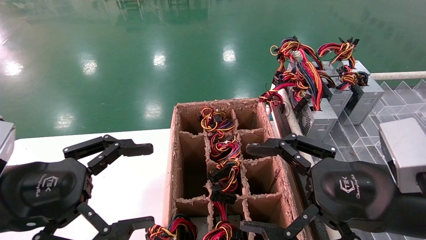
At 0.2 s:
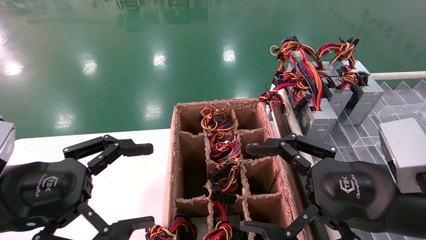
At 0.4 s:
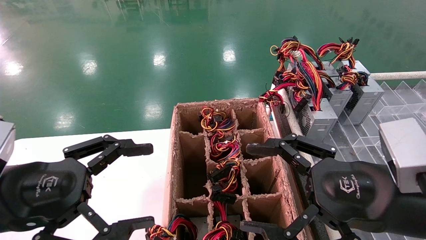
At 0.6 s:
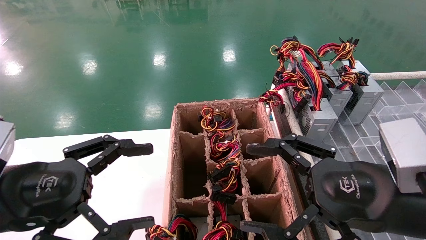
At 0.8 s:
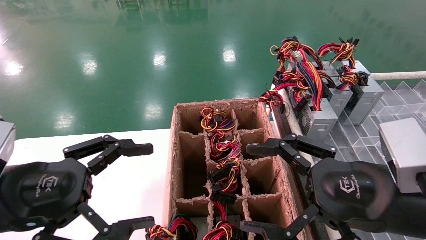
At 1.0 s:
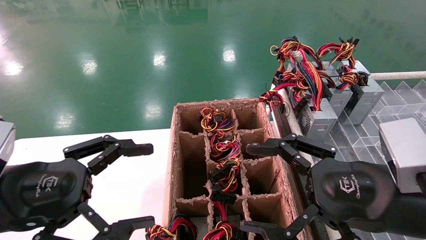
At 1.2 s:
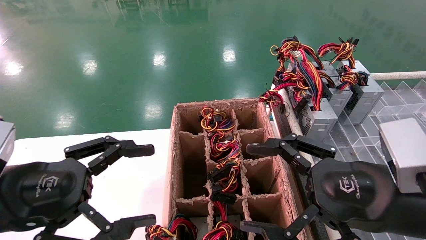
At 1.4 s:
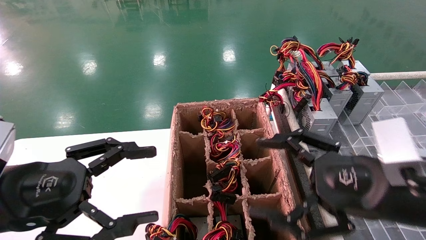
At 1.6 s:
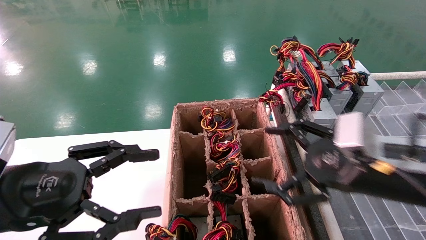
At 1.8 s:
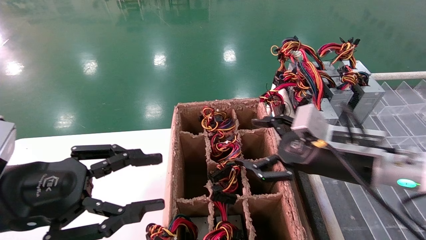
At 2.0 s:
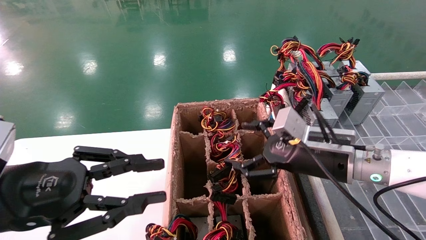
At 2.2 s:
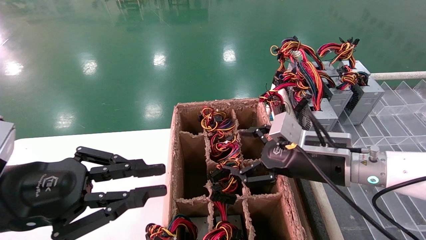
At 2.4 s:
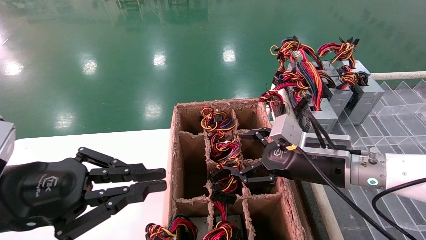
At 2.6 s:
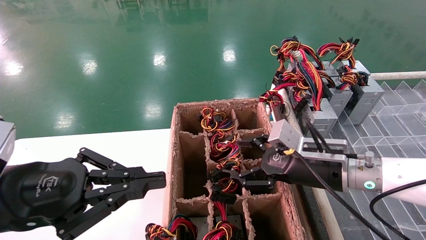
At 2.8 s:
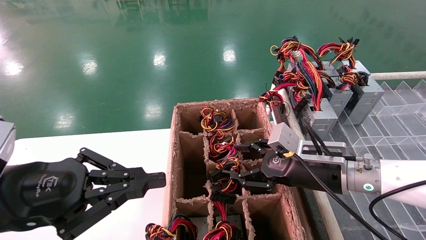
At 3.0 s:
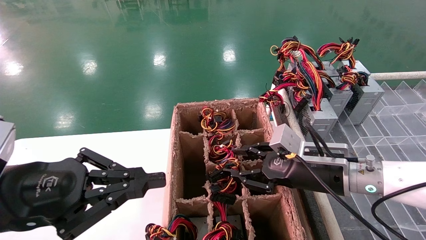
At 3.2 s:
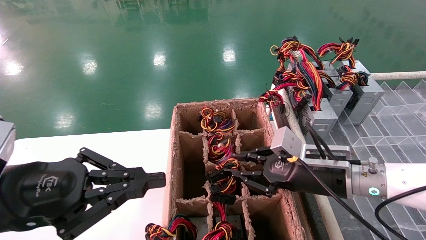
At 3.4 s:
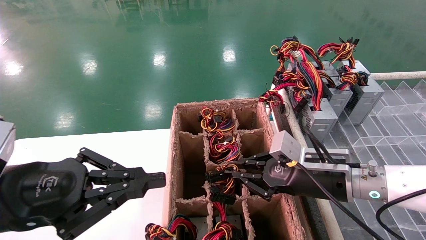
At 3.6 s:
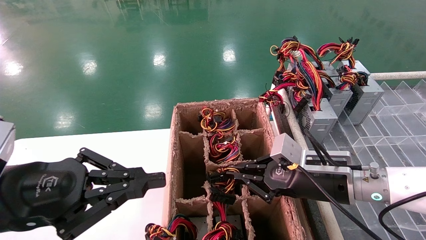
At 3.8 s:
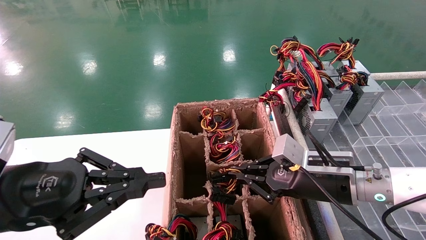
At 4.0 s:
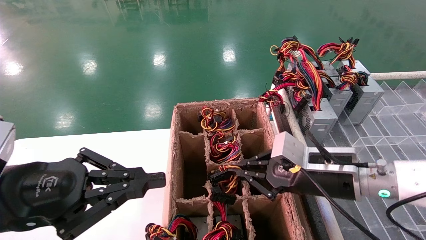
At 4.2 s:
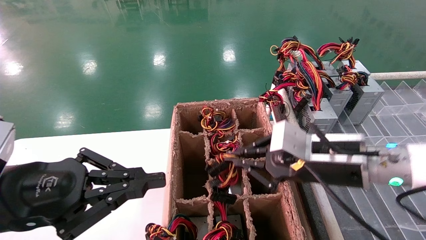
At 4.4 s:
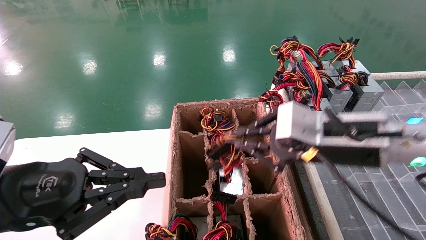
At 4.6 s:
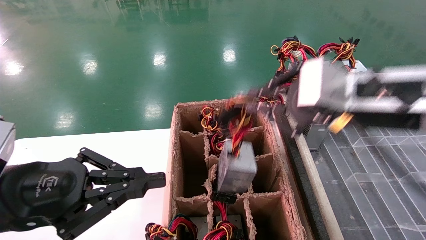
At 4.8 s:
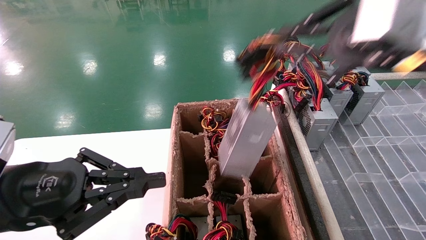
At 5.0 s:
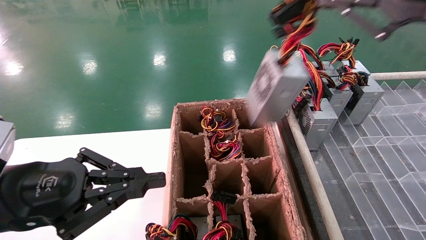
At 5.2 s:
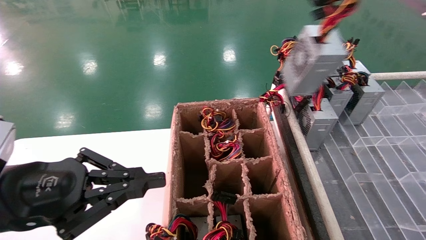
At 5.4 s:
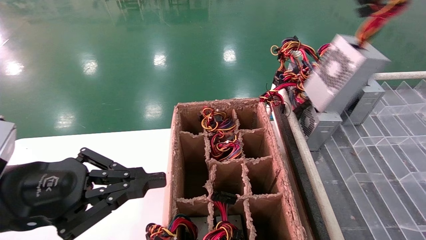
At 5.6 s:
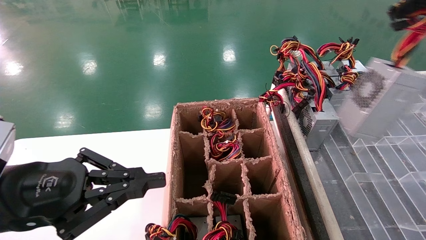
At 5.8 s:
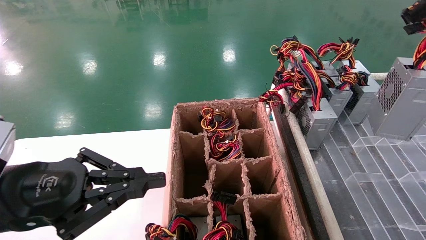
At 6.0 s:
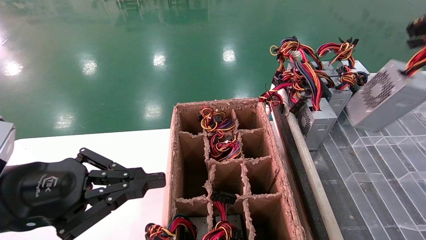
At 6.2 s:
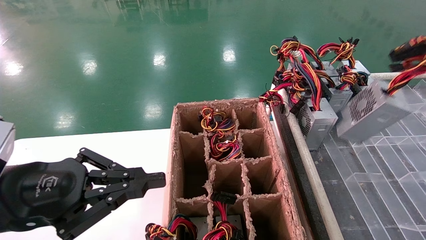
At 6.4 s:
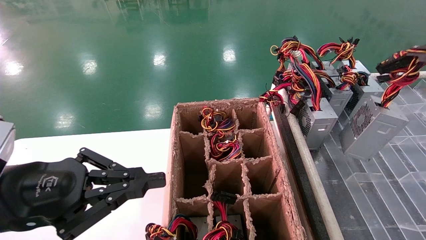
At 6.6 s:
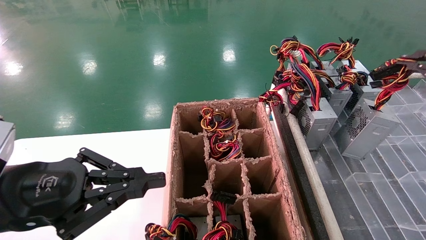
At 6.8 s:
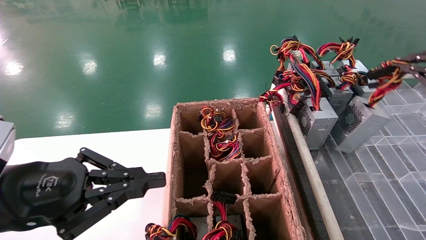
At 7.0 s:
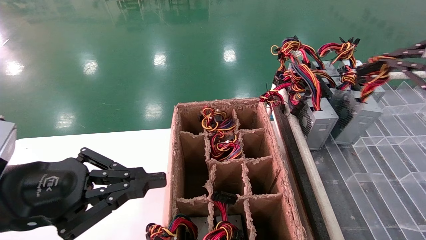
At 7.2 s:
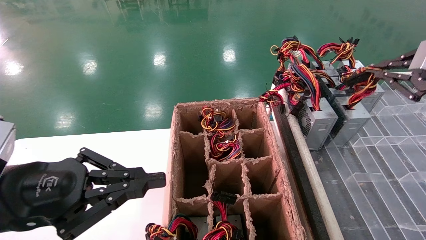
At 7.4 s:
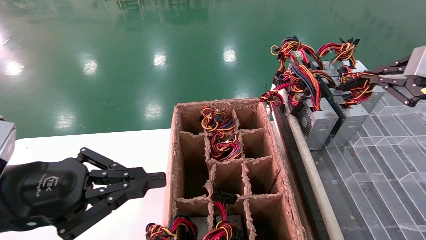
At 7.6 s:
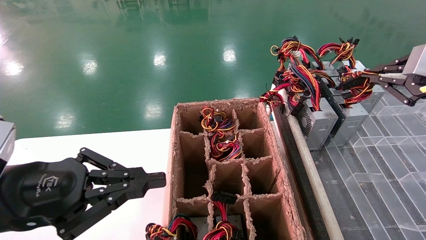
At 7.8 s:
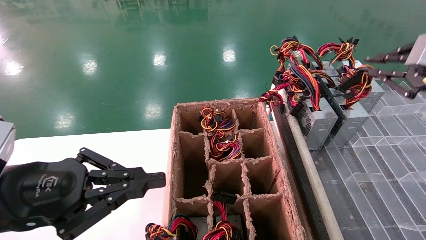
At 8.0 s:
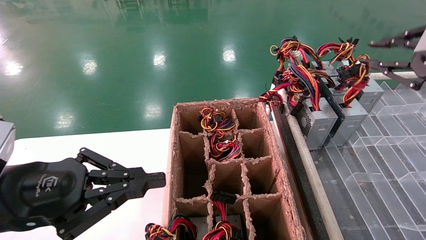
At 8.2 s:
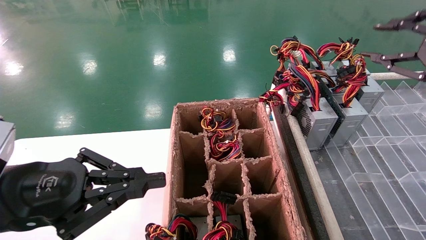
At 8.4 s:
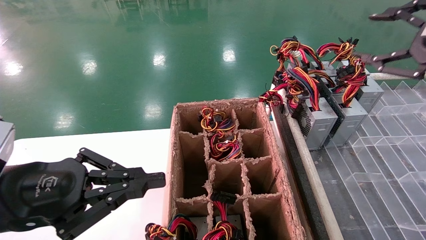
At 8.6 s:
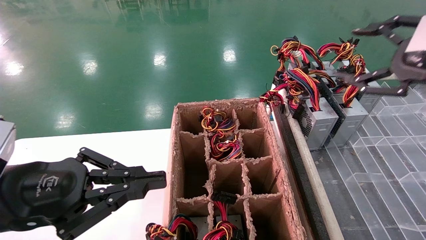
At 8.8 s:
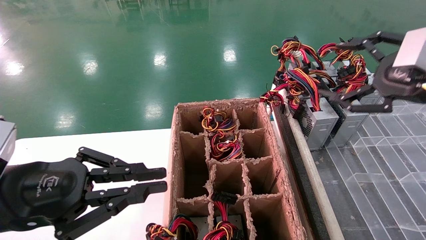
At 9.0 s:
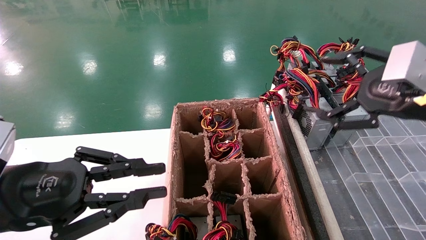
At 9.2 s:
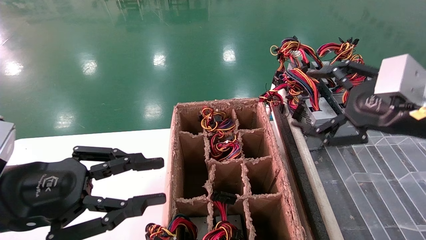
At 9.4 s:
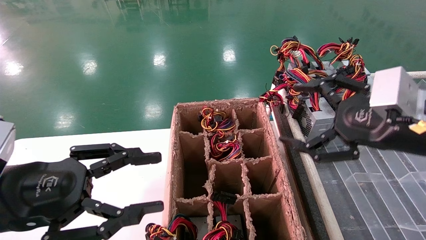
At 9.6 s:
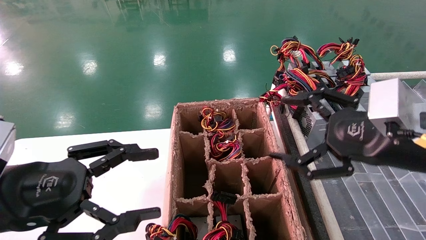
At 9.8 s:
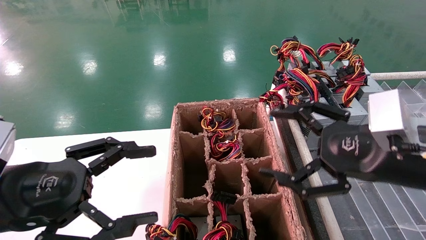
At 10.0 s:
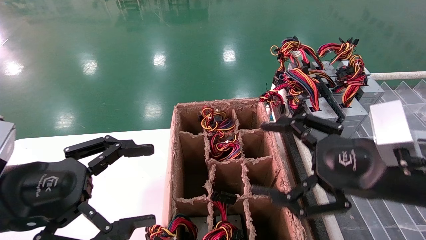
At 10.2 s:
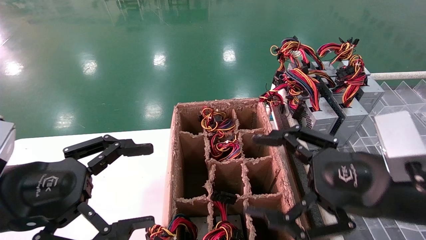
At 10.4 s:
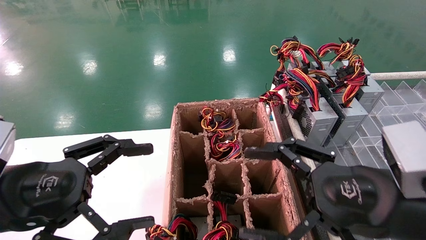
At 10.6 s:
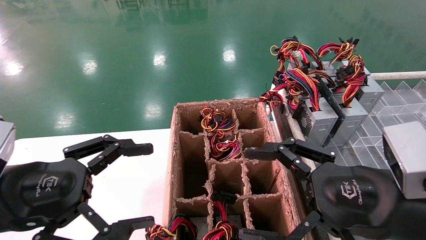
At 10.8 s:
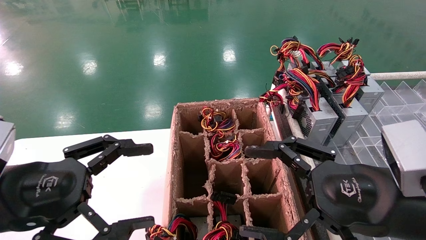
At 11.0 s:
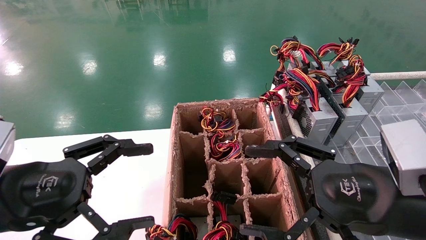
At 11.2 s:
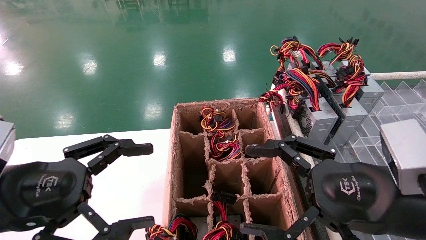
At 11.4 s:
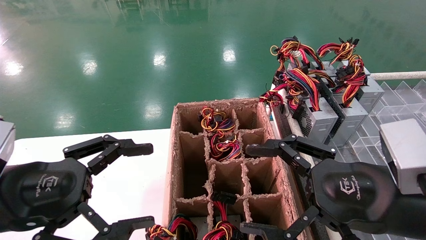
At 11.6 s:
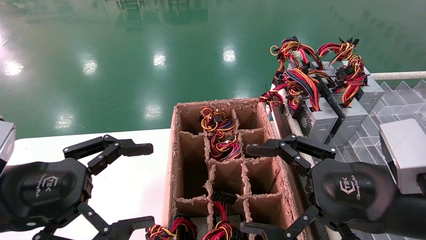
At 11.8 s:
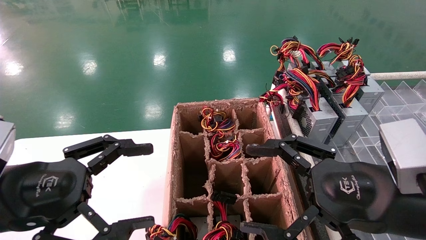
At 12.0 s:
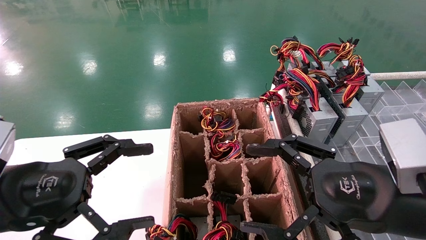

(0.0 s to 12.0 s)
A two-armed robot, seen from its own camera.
Step, 1.8 s - 3.6 s: Grab the main unit power supply from the containment box.
Step, 3.8 s - 8.0 s: Place the main unit power supply in the designated area.
0.0 s - 1.6 s: The right gripper moves forward, roughly 5 cm.
1.6 s - 3.0 s: The left gripper closes up, while the right gripper moves forward, about 5 cm, and closes.
3.0 s - 4.4 s: The right gripper is displaced upward and backward by about 15 cm, and closes its fingers.
4.4 s - 6.0 s: The right gripper travels to the right, upward and backward by about 25 cm.
6.0 s - 7.6 s: The right gripper goes approximately 15 cm forward and downward.
7.6 s - 9.0 s: The right gripper goes some 10 cm to the left, and opens.
9.0 s - 10.4 s: The right gripper heads downward and to the left, covering about 15 cm. Meanwhile the left gripper opens its fingers.
10.4 s - 12.0 s: The two grippers keep their place.

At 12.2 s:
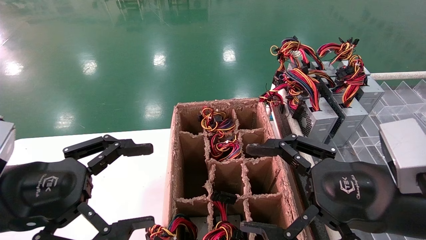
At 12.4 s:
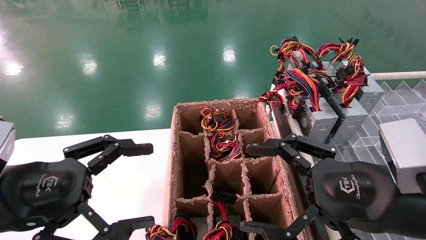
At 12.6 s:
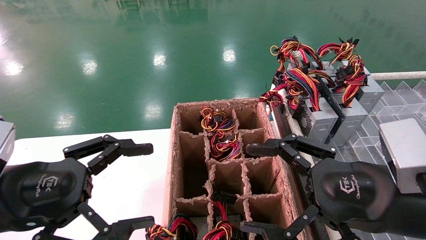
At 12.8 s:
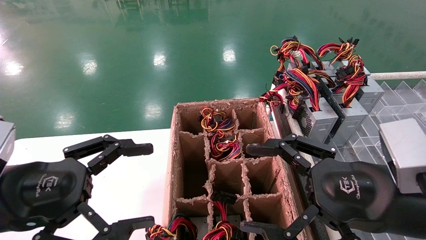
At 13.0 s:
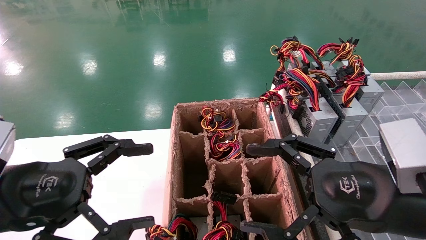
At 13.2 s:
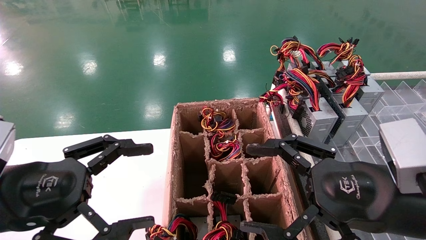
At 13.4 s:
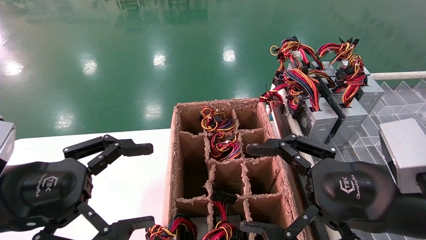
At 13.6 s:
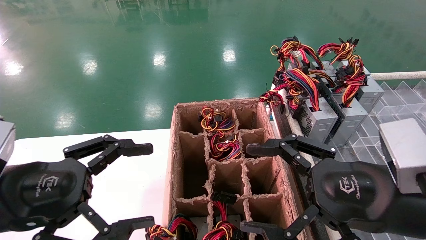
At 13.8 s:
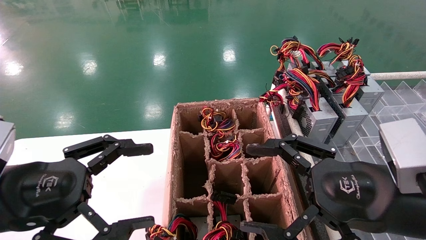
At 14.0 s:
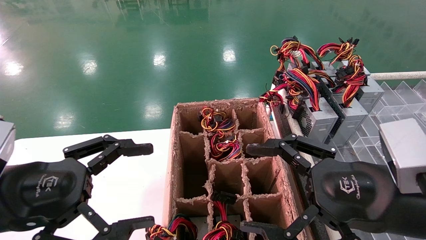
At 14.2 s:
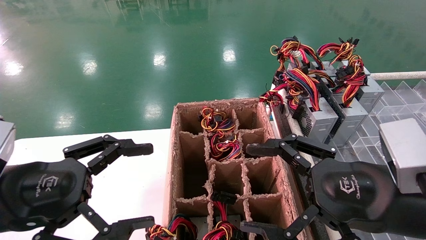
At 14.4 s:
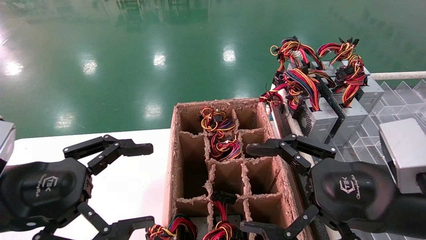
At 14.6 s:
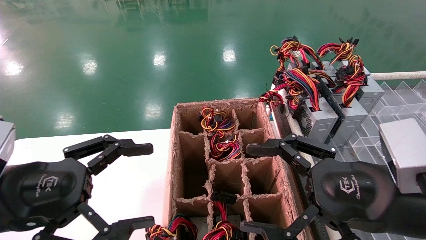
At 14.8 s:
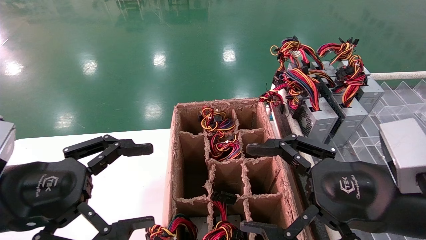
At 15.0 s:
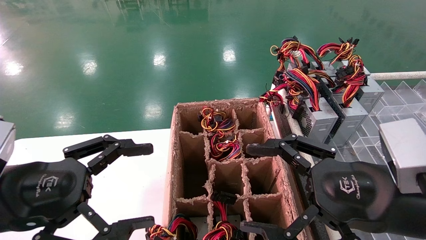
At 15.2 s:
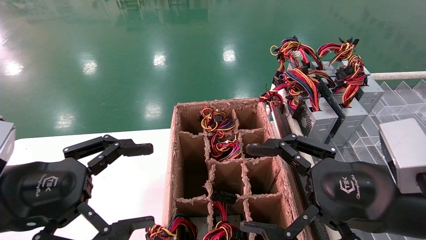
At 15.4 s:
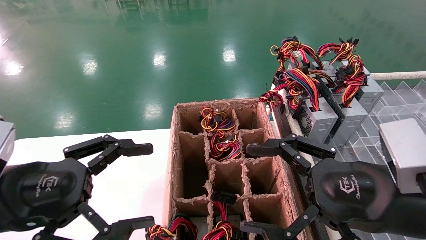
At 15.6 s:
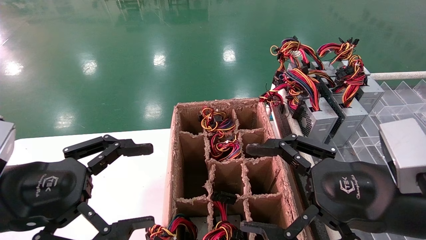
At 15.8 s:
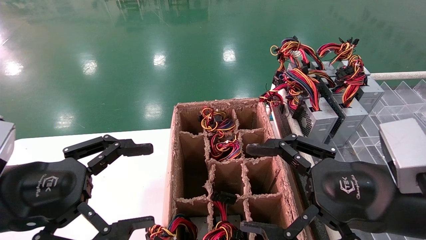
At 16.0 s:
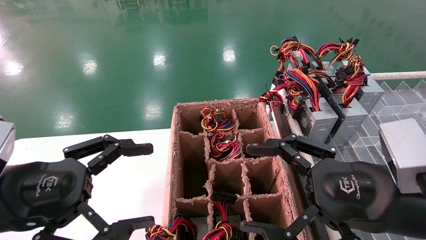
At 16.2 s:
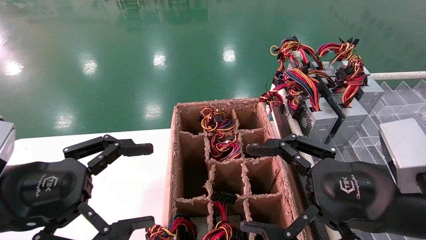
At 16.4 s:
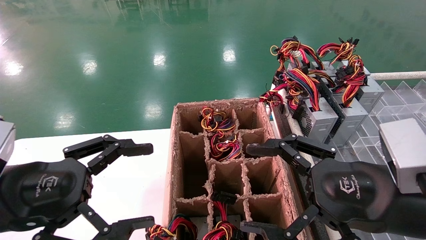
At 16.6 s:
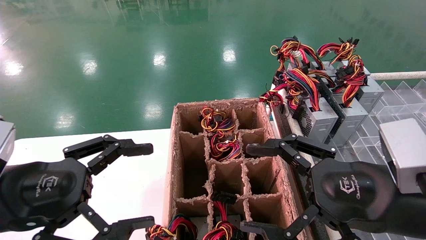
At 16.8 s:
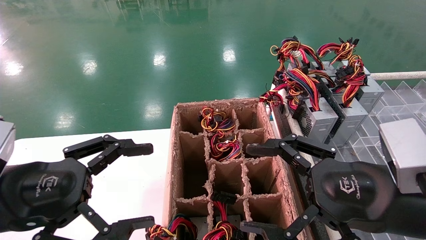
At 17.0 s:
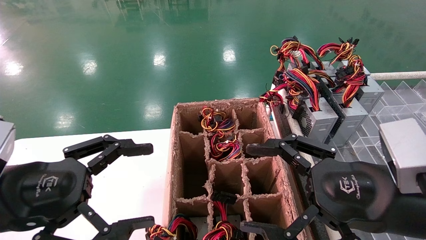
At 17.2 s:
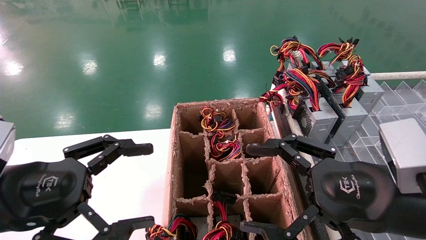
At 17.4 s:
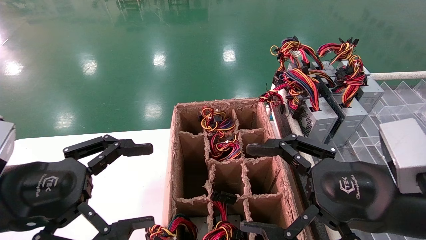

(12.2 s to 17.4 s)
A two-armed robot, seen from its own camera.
12.2 s - 17.4 s: The two grippers keep their place.
